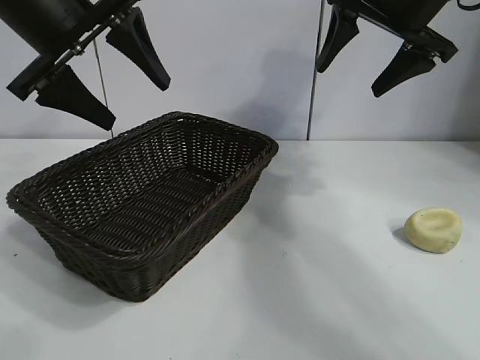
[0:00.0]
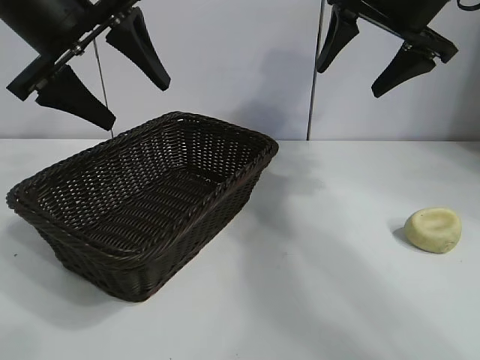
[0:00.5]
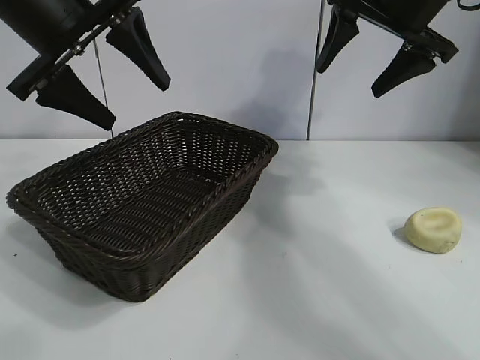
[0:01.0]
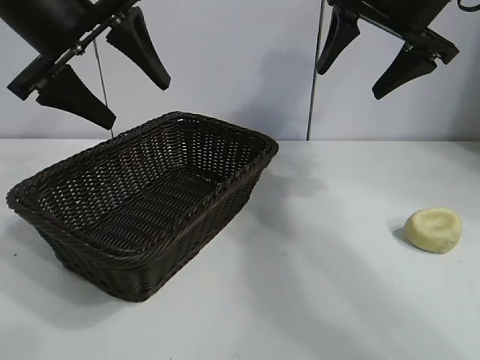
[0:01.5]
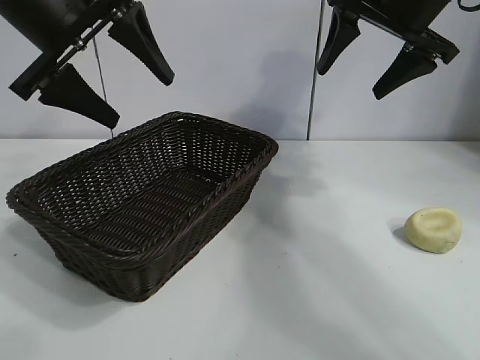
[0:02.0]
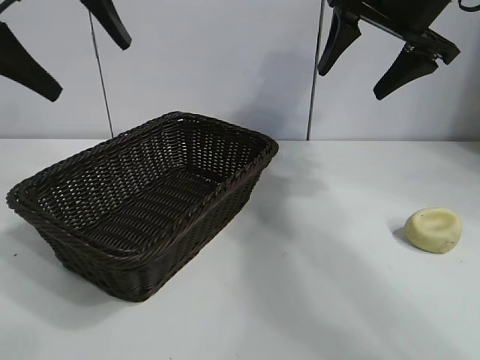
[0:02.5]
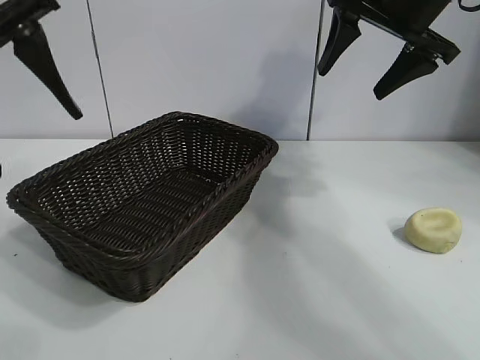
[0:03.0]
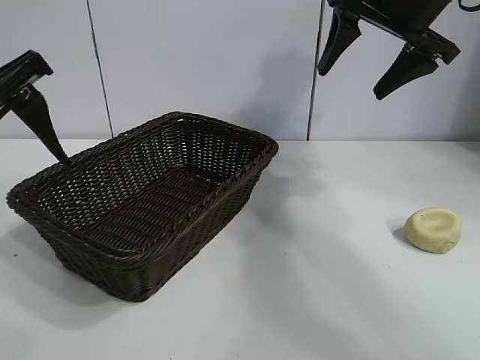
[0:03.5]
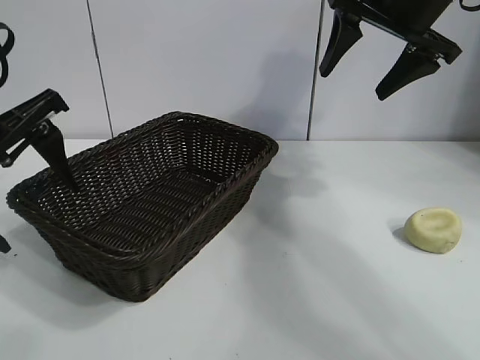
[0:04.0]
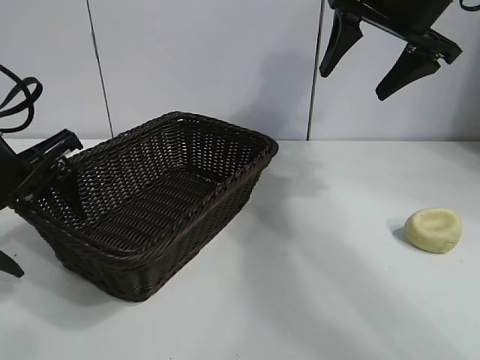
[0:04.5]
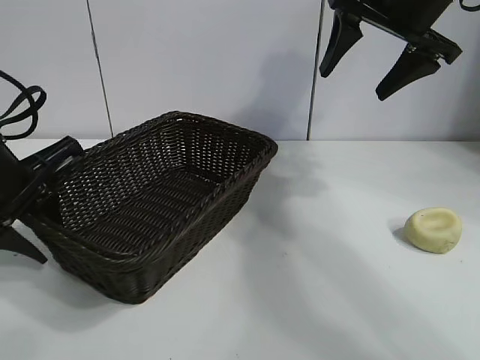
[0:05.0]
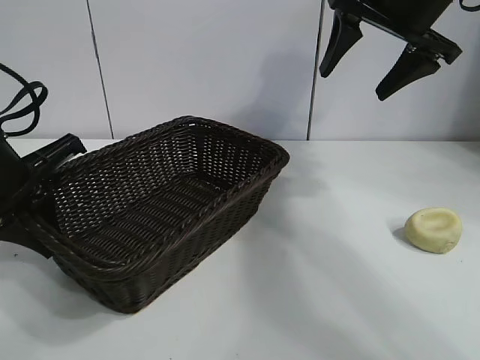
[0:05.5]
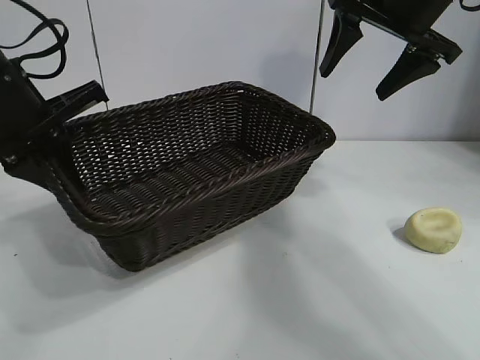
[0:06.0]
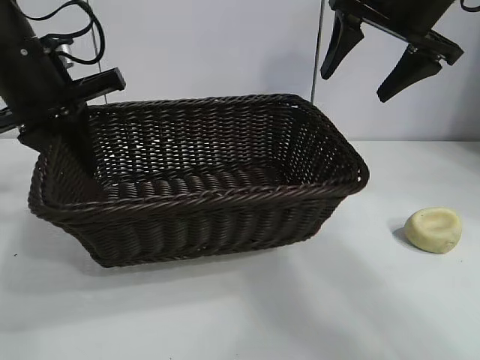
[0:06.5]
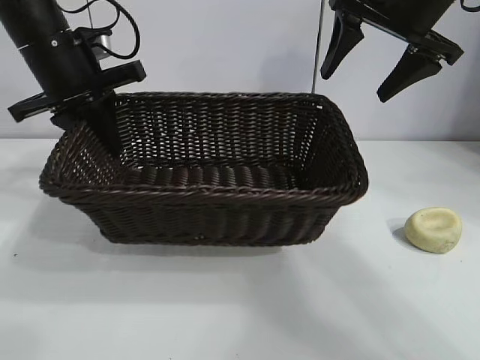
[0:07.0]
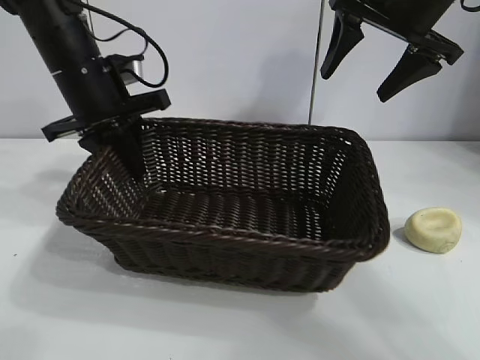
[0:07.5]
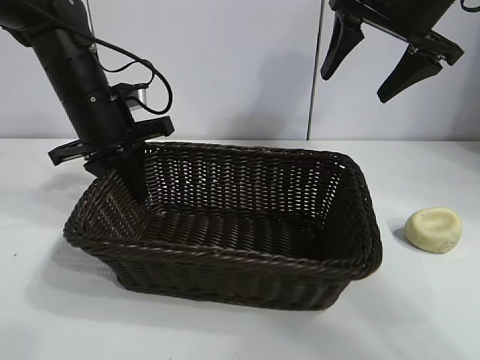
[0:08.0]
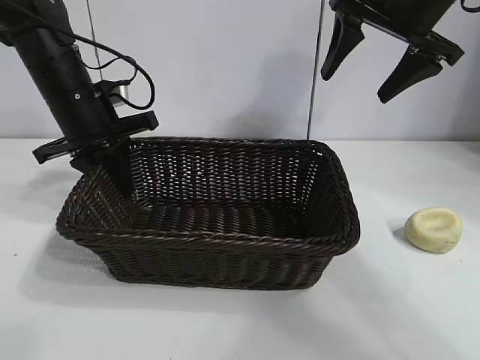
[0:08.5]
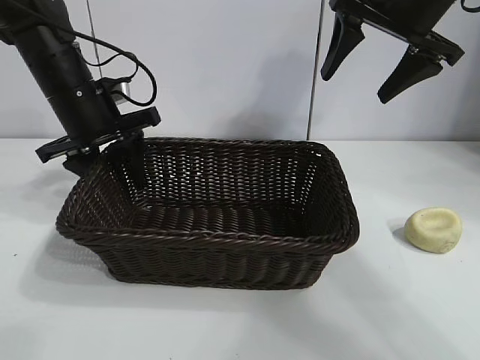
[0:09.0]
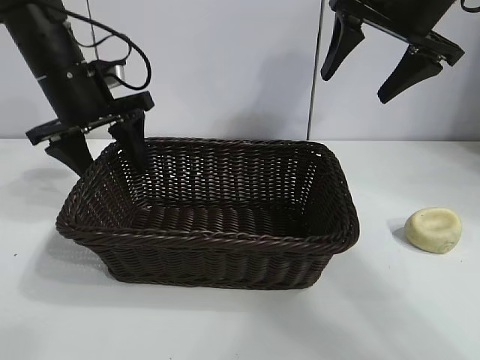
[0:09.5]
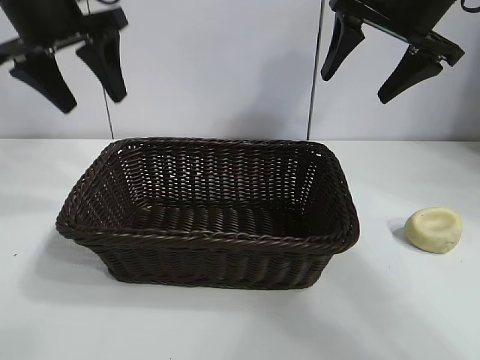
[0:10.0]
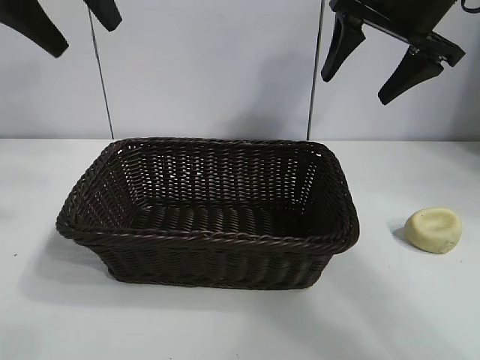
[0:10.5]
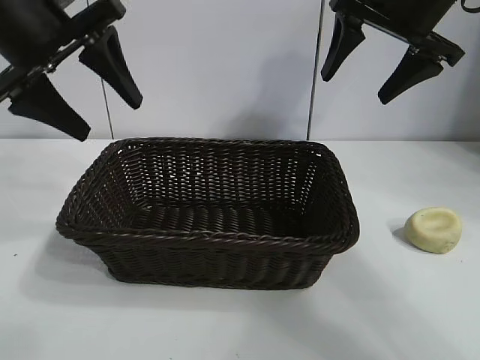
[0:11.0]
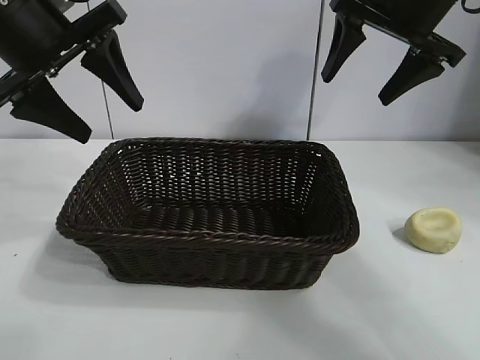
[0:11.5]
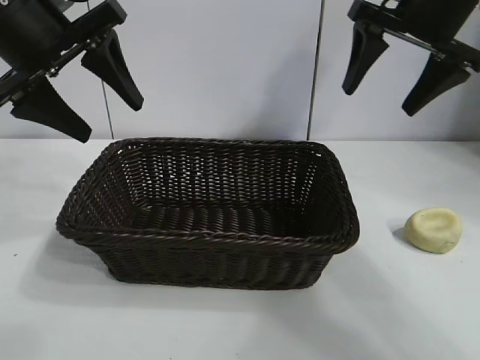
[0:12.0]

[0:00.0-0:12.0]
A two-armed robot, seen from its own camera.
Task of the whole recording: pick up the egg yolk pastry and put it into the basket.
Step, 0:01.5 to 0:05.0: Grasp the basket with left gripper.
Step, 0:05.5 to 0:09.0: Place the basket in the center of view with left gripper.

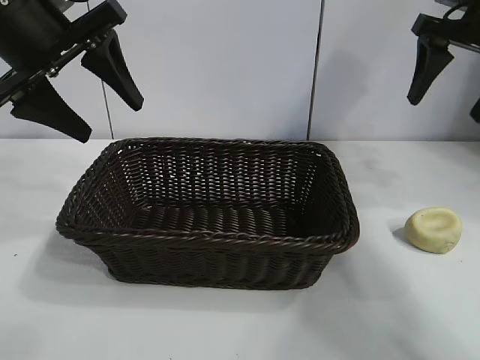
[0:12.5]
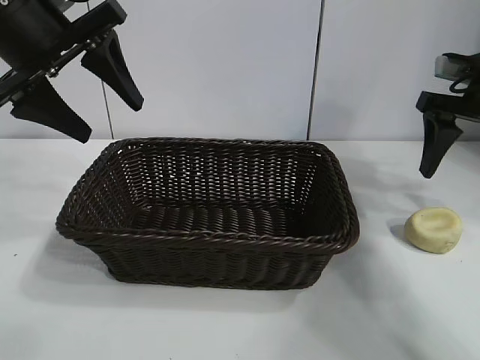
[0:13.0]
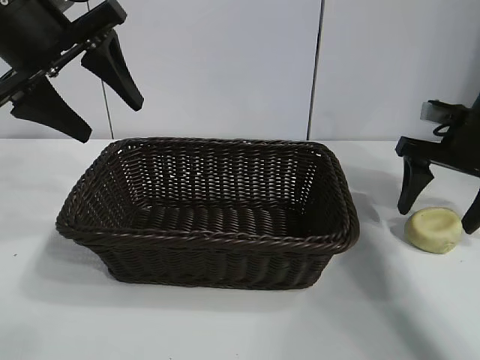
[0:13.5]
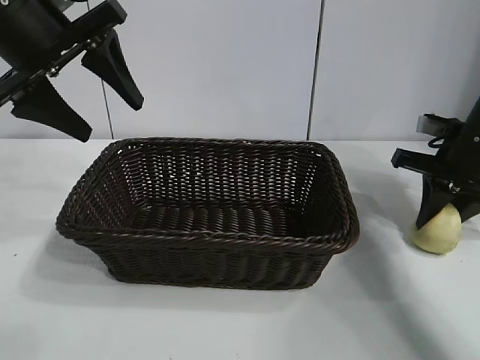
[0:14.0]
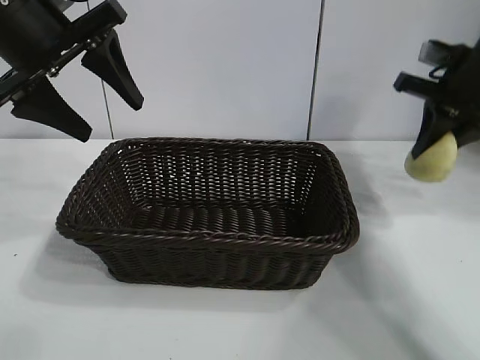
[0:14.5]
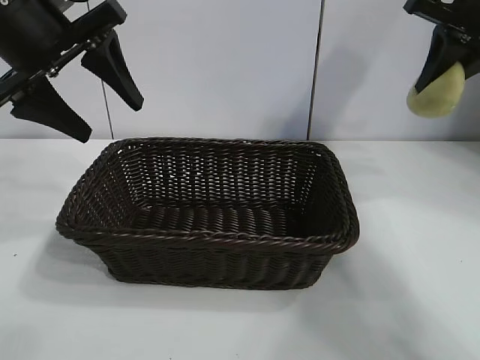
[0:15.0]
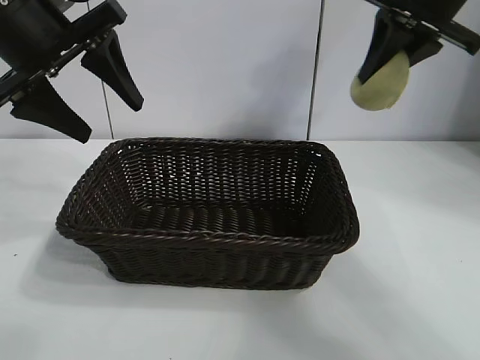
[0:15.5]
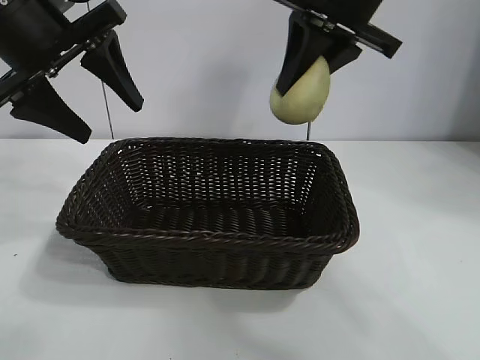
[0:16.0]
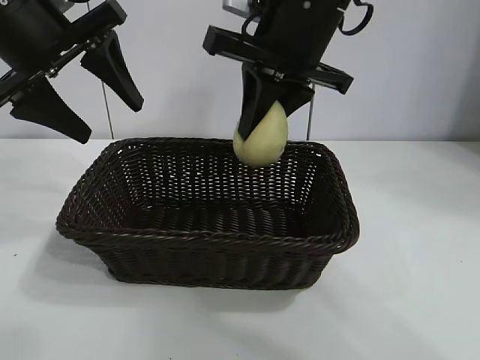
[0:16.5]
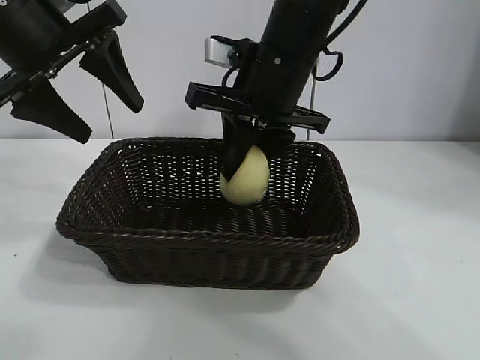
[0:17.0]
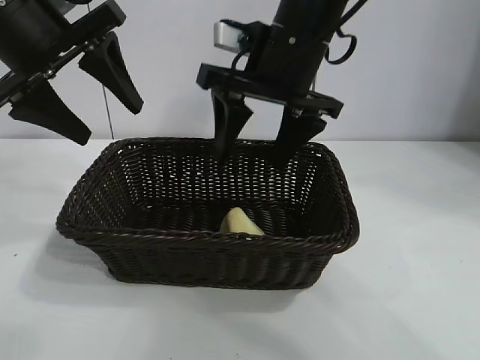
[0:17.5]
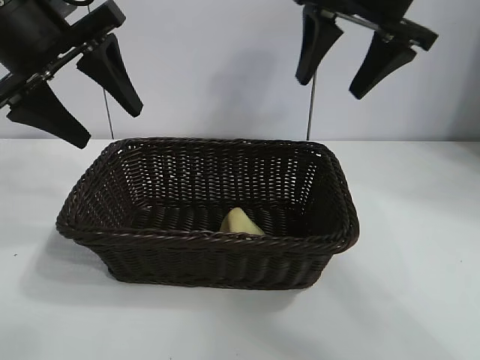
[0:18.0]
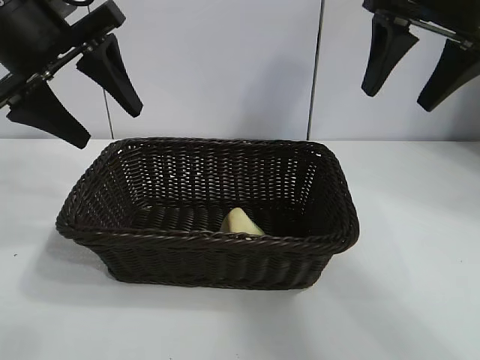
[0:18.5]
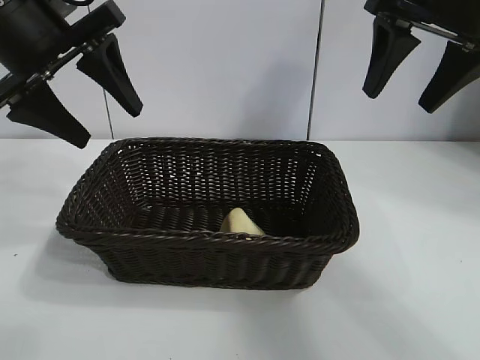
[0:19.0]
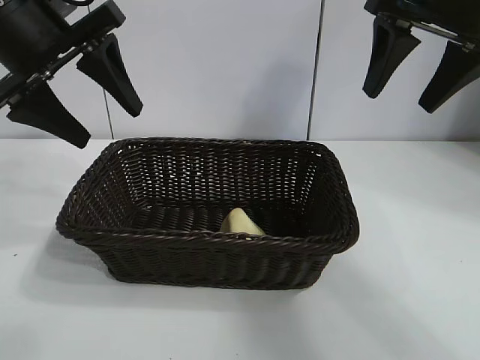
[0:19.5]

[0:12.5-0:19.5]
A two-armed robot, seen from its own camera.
Task of the whole recording: pick up the egg yolk pastry and put it into the basket.
Step, 0:14.5 to 0:17.0: Place the egg yolk pastry in the basket with right gripper.

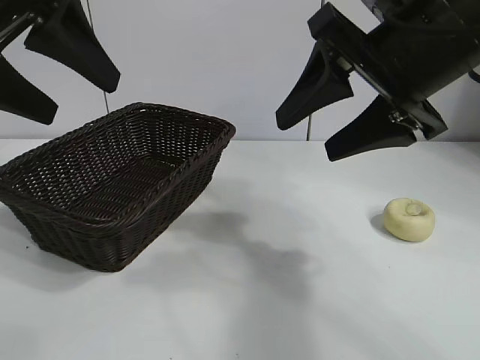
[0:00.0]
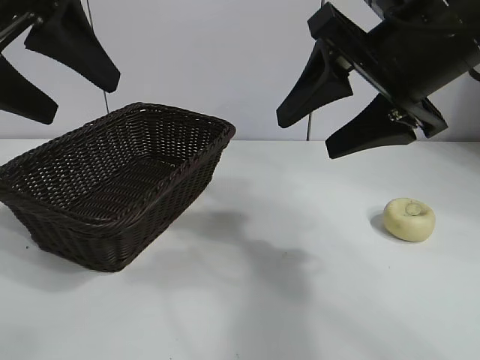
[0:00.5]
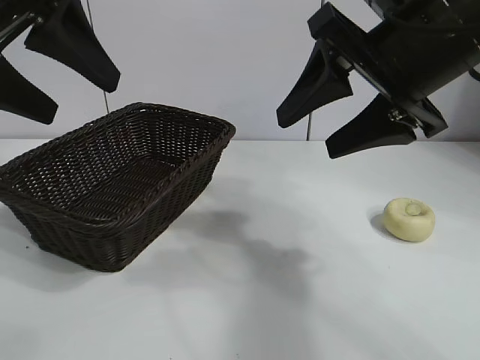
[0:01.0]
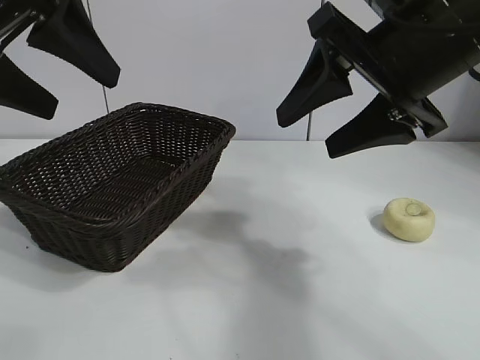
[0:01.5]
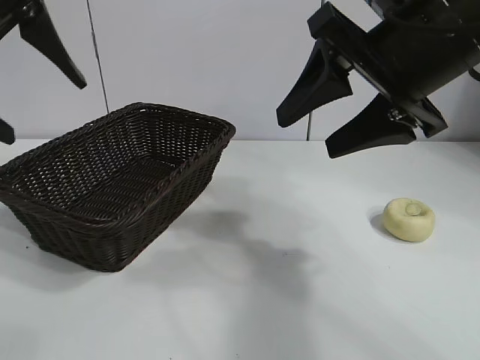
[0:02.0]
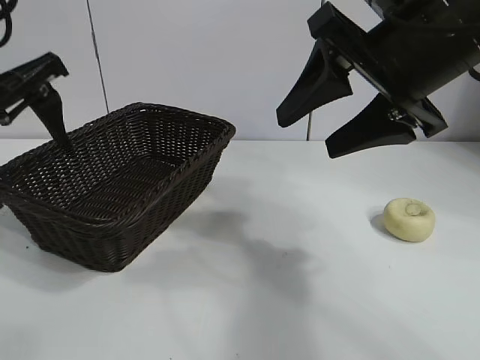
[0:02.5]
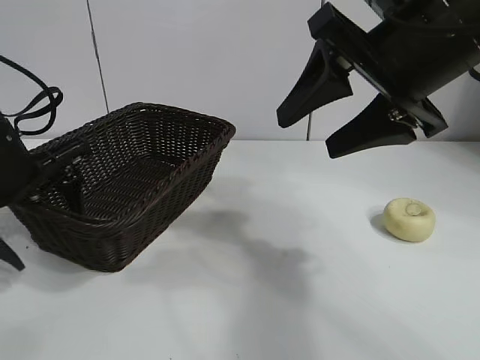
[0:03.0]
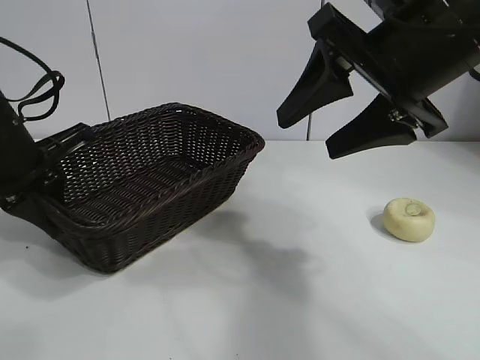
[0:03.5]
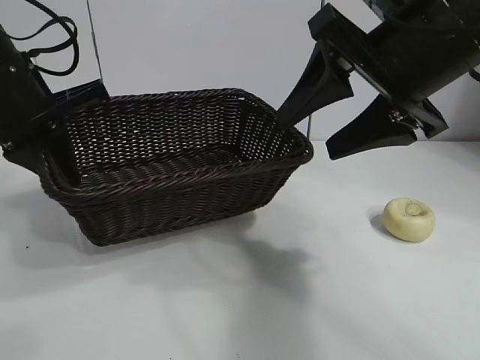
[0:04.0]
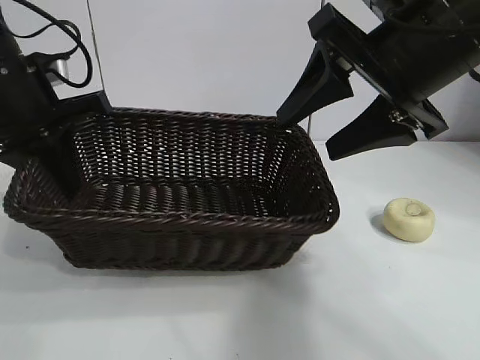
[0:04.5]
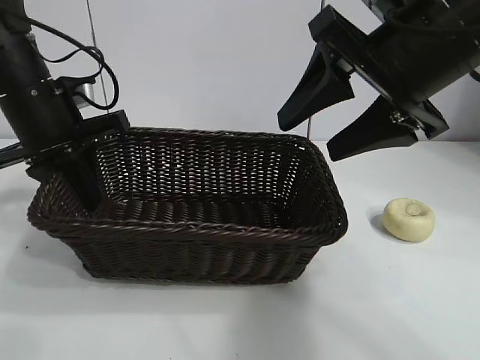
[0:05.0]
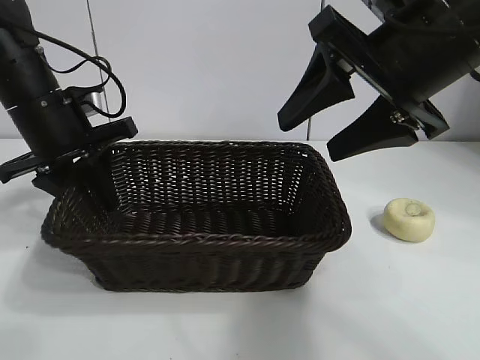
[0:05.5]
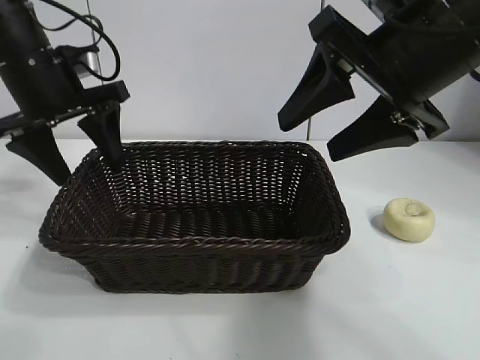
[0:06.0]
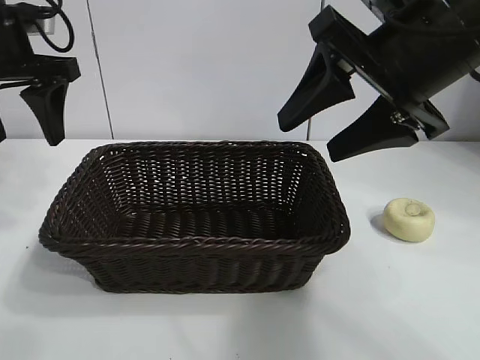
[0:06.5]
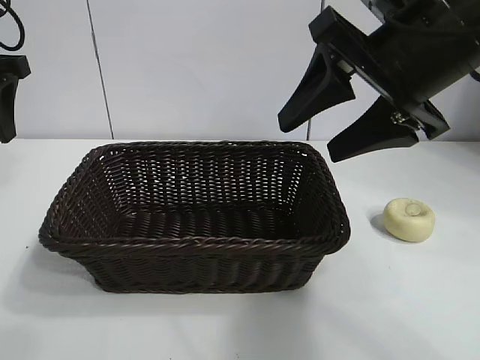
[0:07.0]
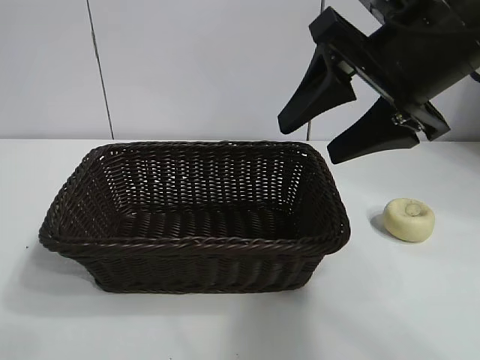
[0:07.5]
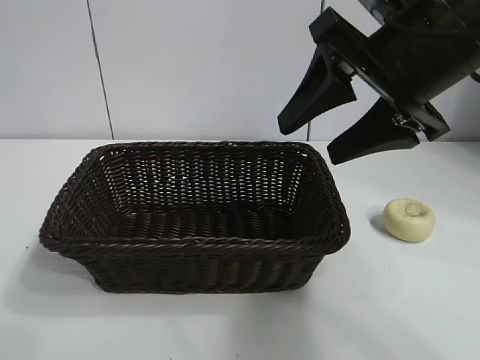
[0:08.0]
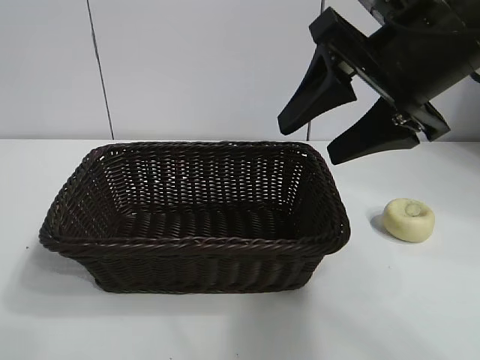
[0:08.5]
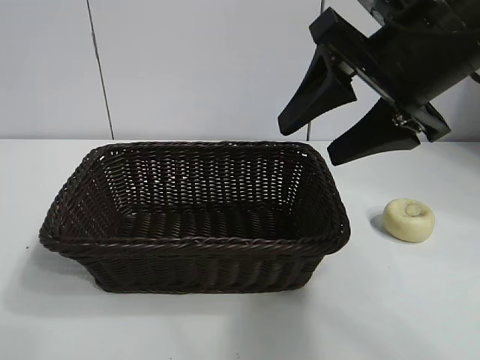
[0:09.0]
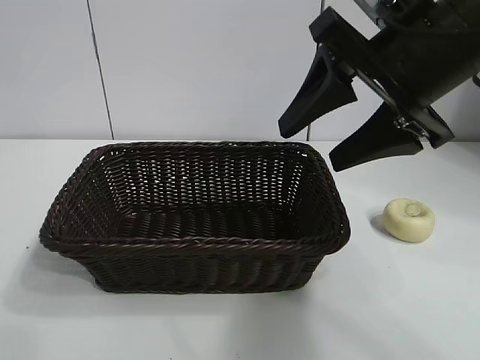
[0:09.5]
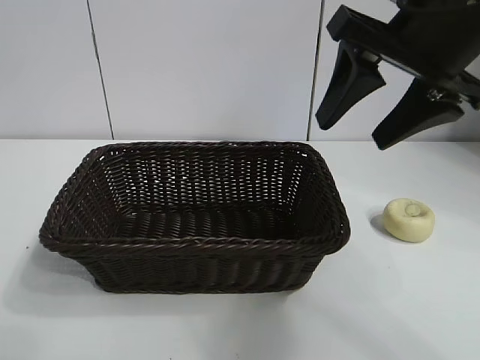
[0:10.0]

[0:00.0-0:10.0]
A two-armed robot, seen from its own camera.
Task of the whole recording: pick up the egg yolk pastry and put it into the basket.
Step, 0:00.0 to 0:03.0: Grasp the basket with left gripper.
Step, 0:03.5 to 0:06.0: Place the basket in the center of view with left gripper.
